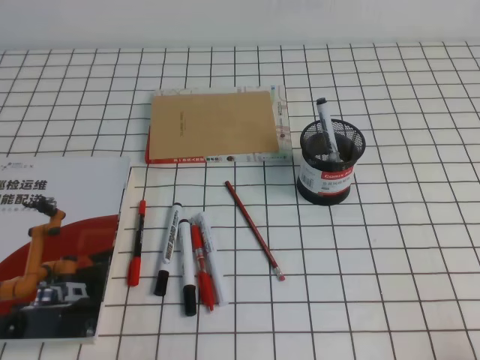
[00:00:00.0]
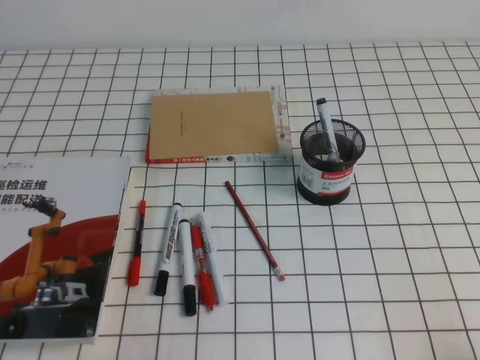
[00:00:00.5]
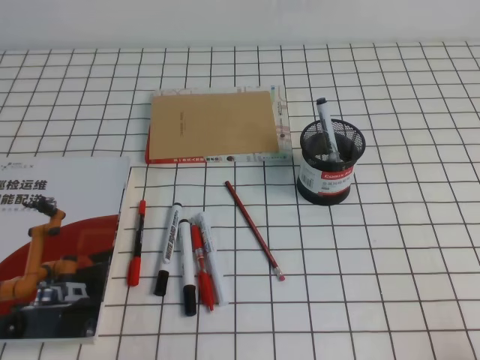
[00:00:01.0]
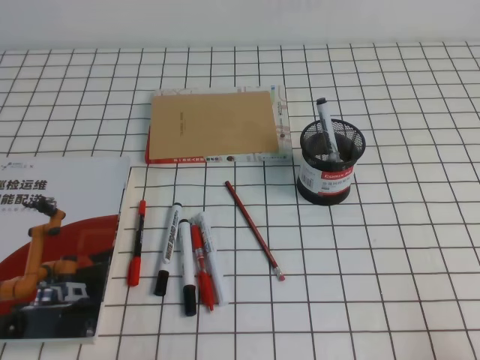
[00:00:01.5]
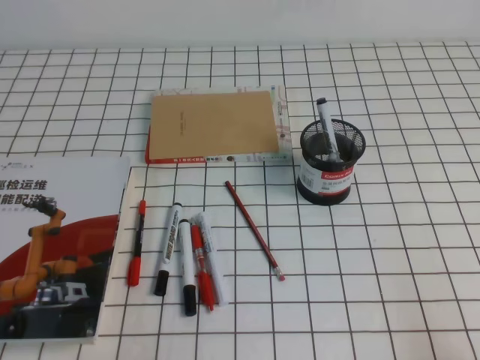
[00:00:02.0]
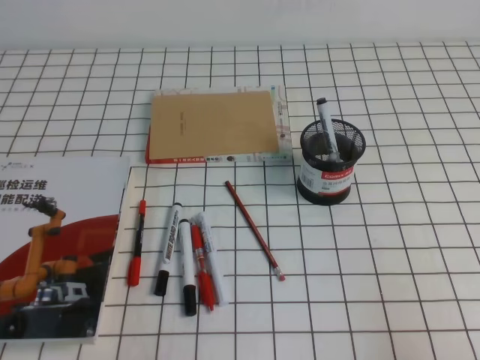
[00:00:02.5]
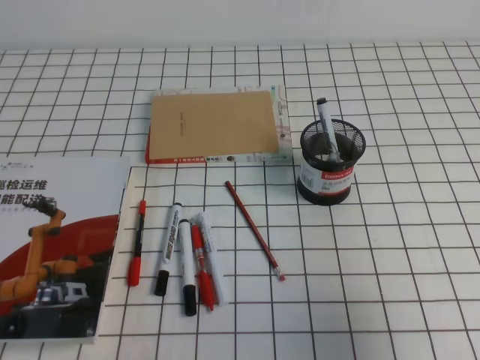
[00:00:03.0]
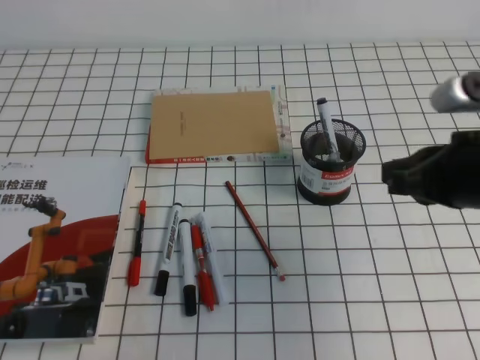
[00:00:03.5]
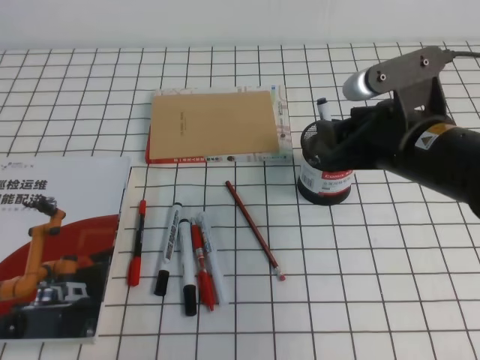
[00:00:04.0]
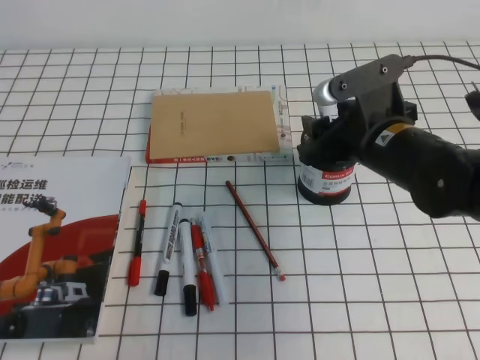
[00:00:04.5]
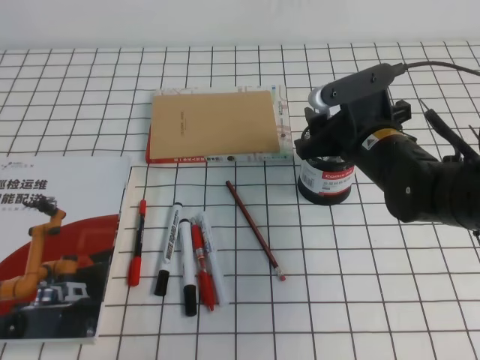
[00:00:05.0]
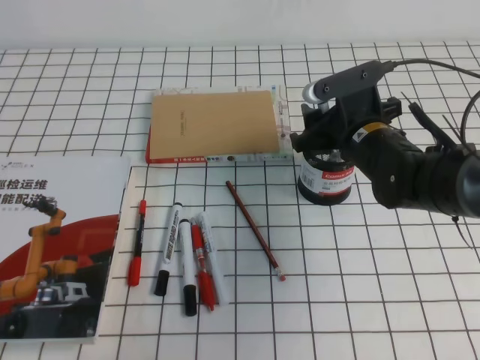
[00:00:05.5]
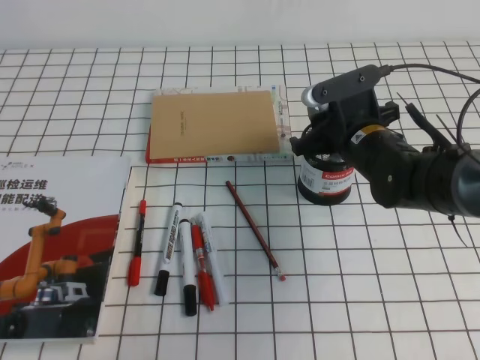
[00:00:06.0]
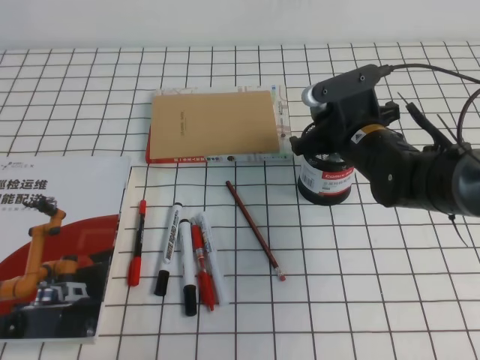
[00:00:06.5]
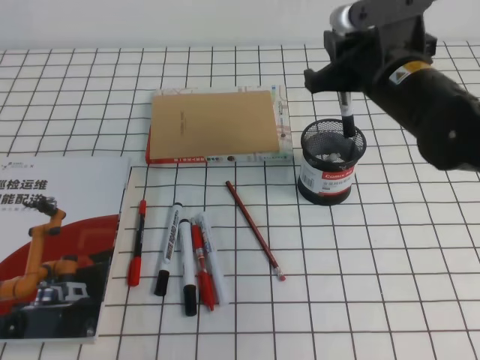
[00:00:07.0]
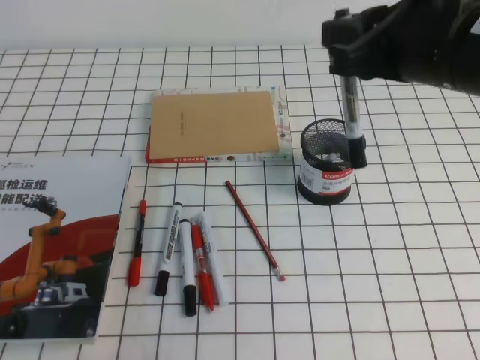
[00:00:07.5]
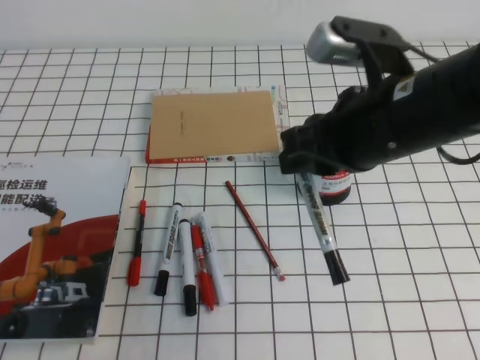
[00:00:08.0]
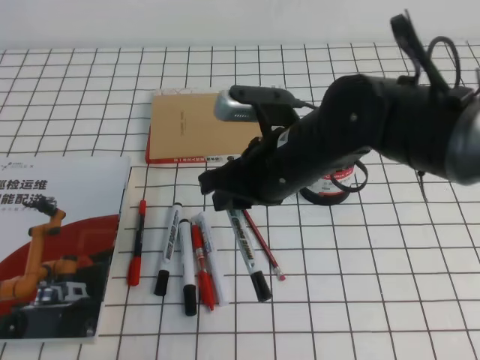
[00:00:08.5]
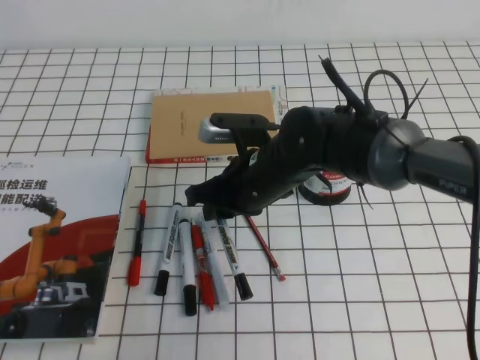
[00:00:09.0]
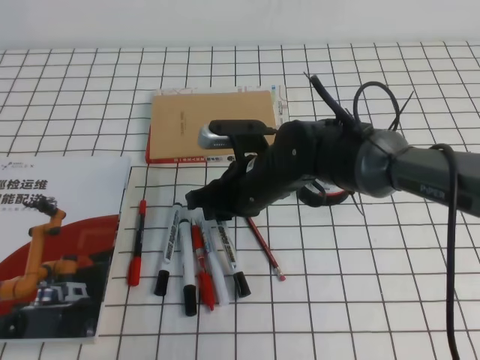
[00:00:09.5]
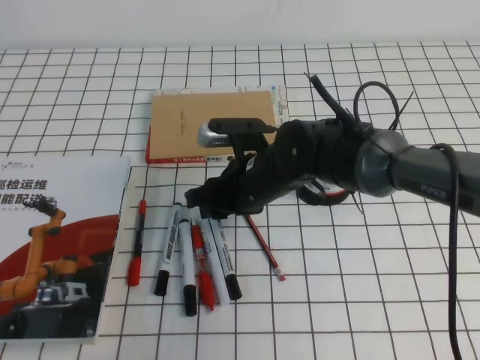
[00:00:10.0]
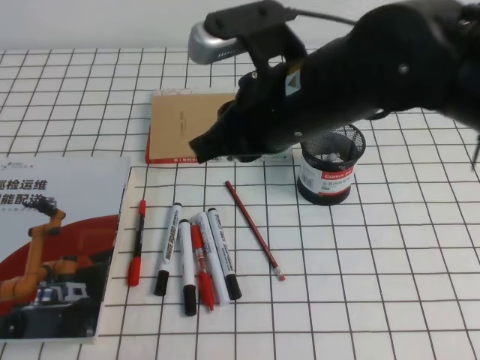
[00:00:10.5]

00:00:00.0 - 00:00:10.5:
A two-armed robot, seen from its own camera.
00:00:02.0 - 00:00:04.0: The right gripper shifts roughly 25 cm forward and to the left, and opens.
00:00:04.0 - 00:00:06.5: The right gripper moves forward and downward, about 10 cm, and closes its fingers.
00:00:06.5 - 00:00:08.5: The right gripper is displaced backward, to the left and upward by some 15 cm.
00:00:08.5 - 00:00:10.5: The right gripper heads upward, covering about 5 cm.

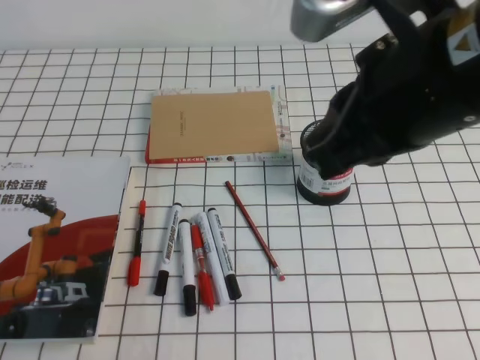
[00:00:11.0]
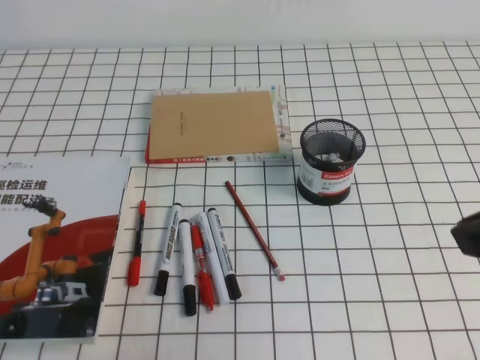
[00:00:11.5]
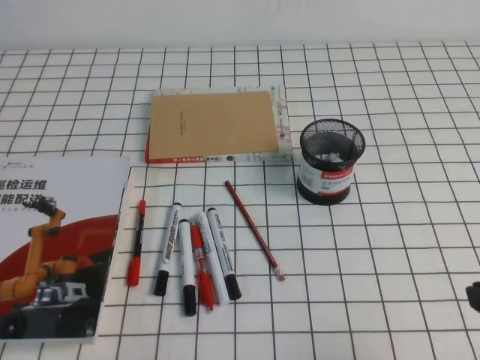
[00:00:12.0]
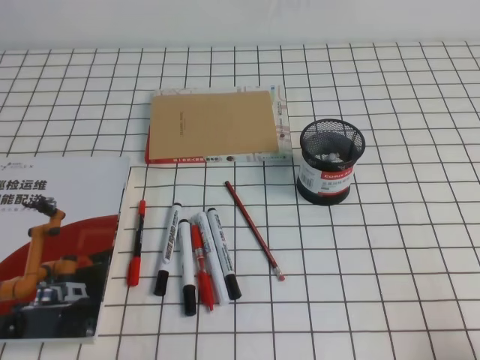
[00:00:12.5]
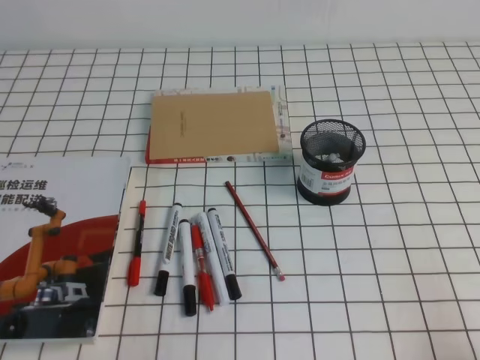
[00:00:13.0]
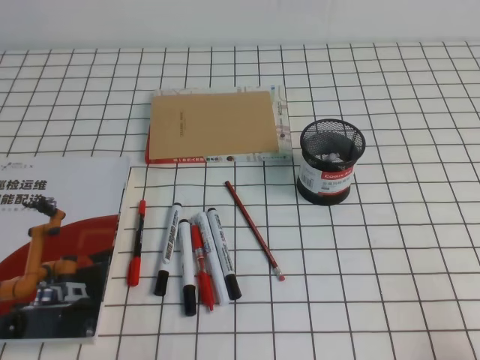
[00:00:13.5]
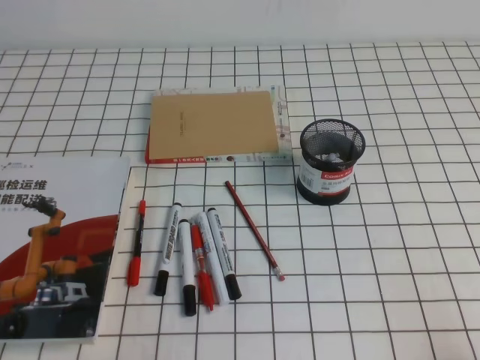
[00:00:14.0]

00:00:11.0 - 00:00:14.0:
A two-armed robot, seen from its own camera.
Step, 00:00:11.0 - 00:00:14.0: Pick up the pen from the pen holder.
00:00:11.0 - 00:00:12.5: The right gripper heads downward, to the right and backward, covering roughly 30 cm.
